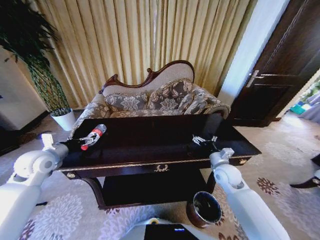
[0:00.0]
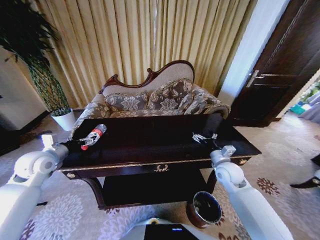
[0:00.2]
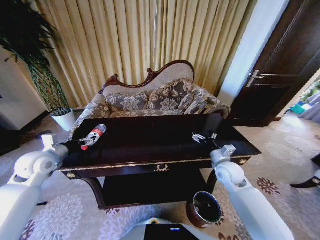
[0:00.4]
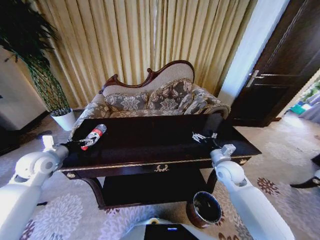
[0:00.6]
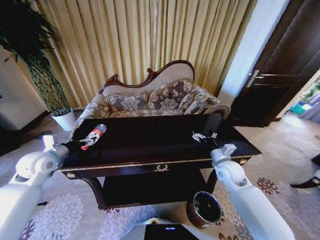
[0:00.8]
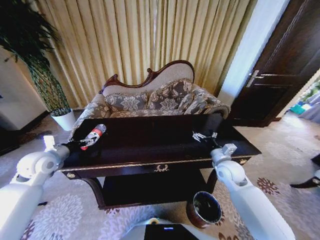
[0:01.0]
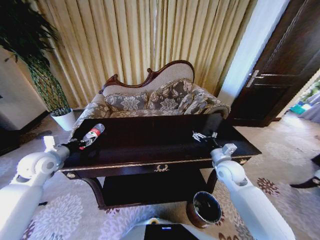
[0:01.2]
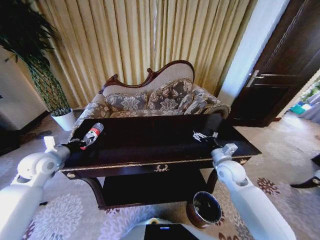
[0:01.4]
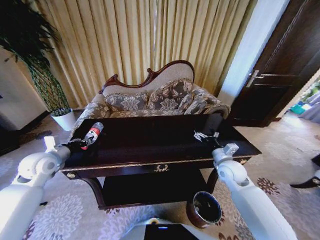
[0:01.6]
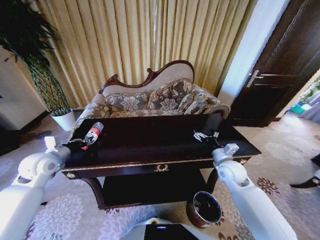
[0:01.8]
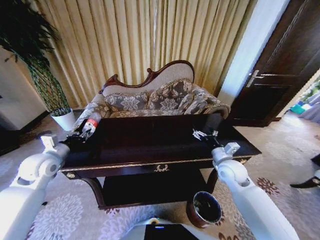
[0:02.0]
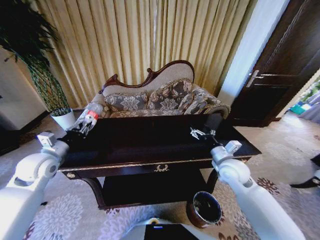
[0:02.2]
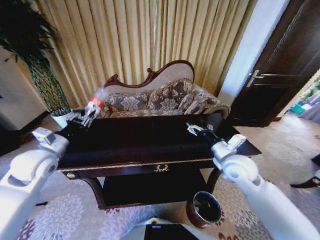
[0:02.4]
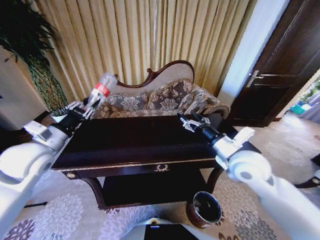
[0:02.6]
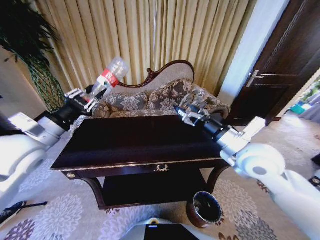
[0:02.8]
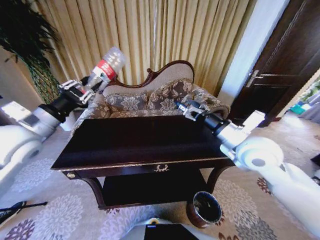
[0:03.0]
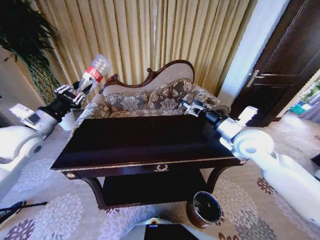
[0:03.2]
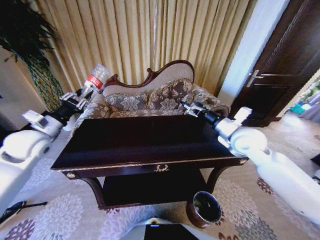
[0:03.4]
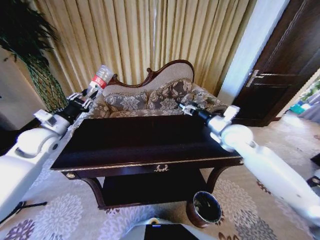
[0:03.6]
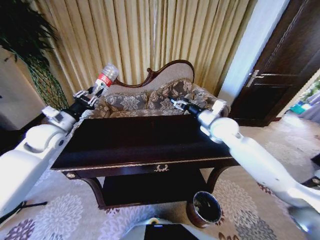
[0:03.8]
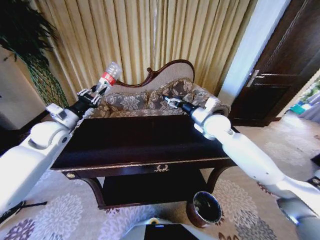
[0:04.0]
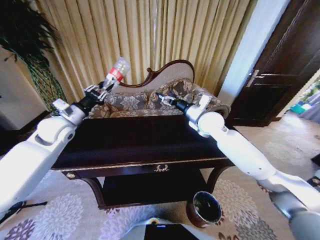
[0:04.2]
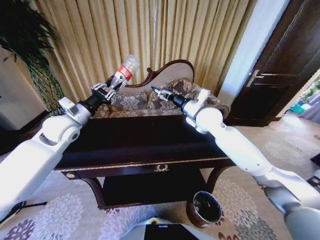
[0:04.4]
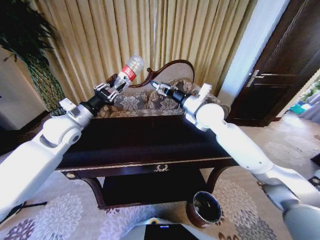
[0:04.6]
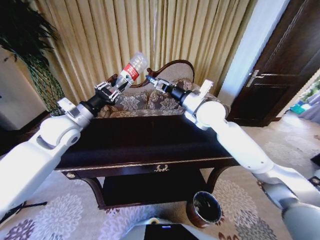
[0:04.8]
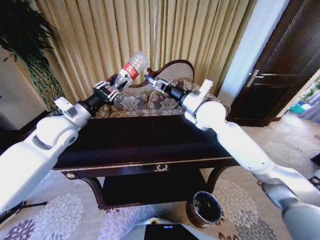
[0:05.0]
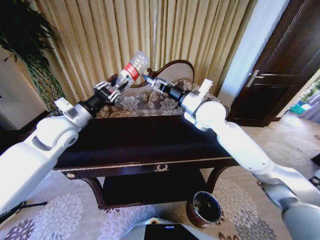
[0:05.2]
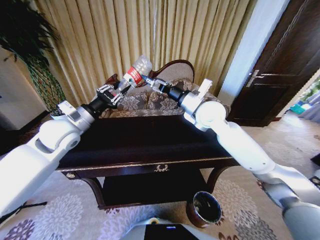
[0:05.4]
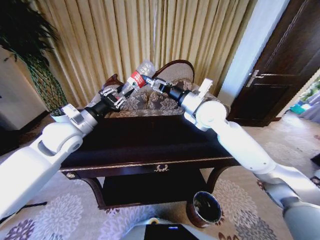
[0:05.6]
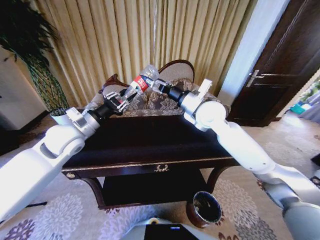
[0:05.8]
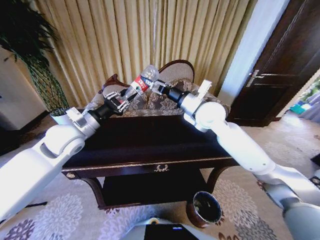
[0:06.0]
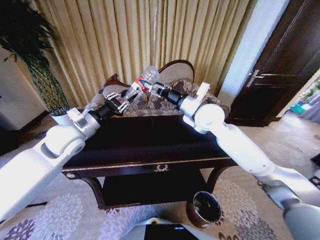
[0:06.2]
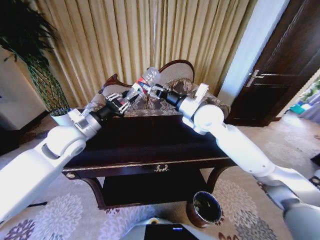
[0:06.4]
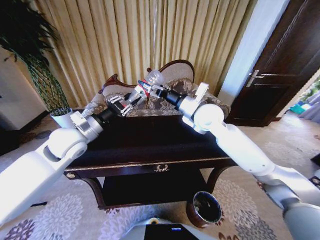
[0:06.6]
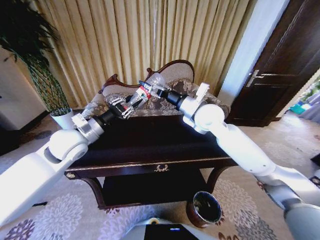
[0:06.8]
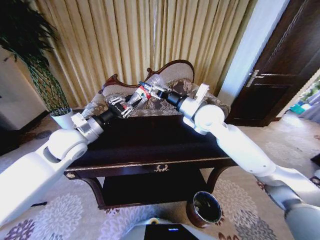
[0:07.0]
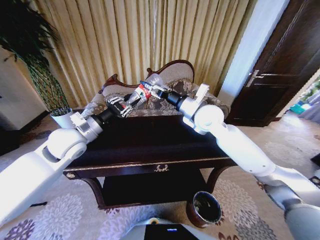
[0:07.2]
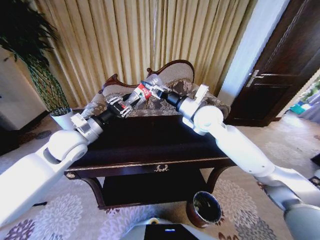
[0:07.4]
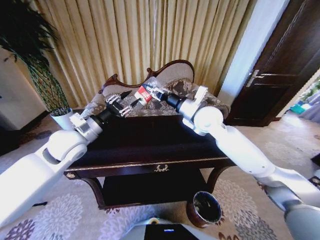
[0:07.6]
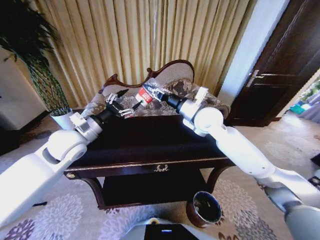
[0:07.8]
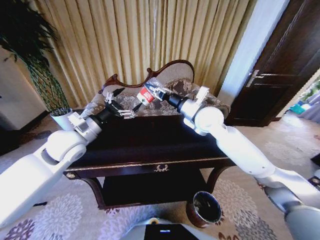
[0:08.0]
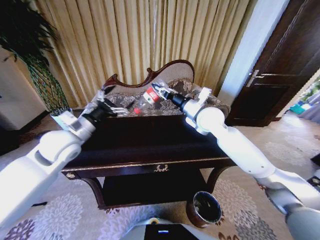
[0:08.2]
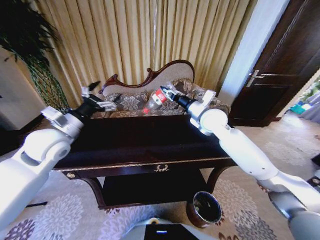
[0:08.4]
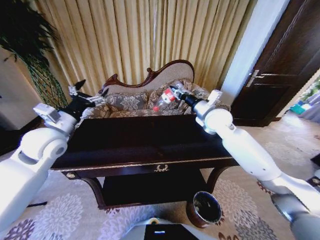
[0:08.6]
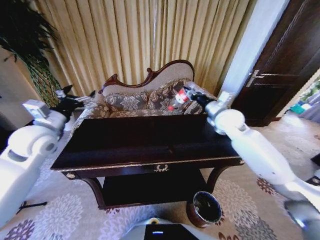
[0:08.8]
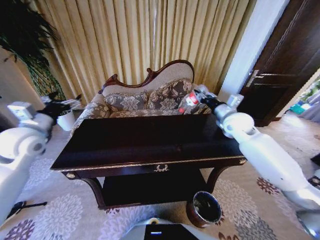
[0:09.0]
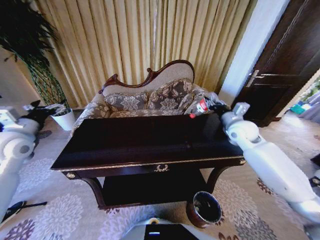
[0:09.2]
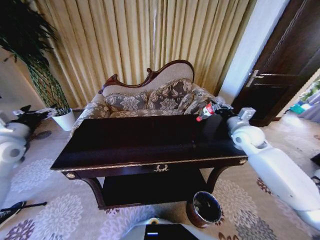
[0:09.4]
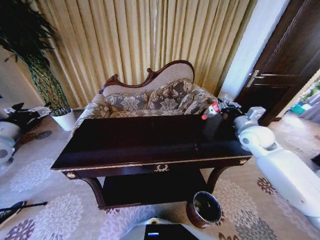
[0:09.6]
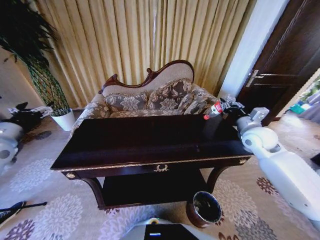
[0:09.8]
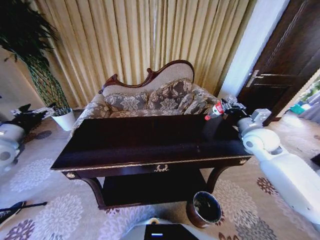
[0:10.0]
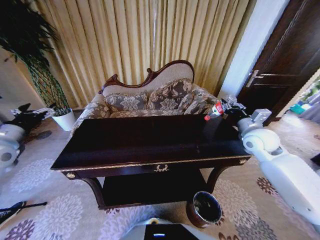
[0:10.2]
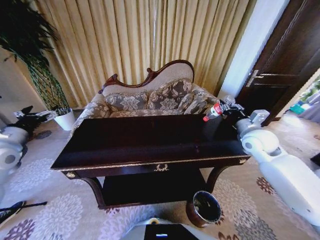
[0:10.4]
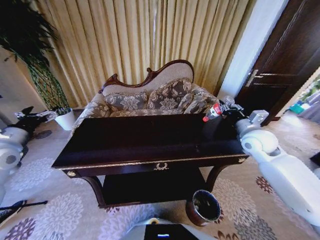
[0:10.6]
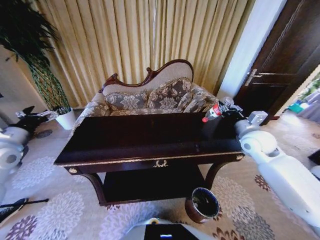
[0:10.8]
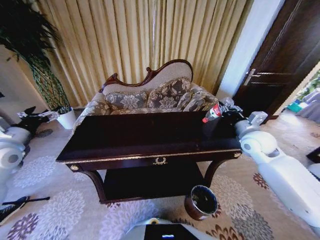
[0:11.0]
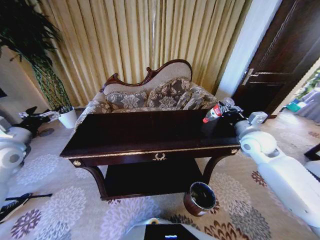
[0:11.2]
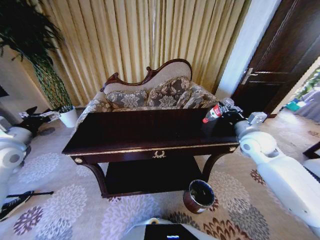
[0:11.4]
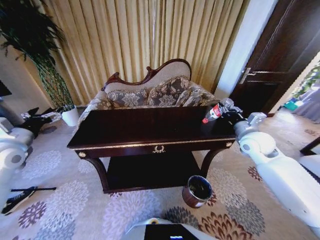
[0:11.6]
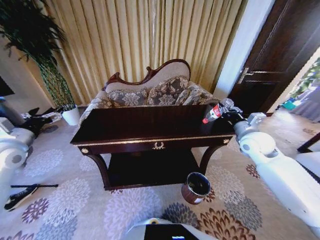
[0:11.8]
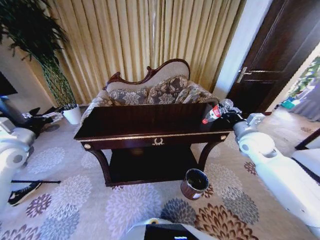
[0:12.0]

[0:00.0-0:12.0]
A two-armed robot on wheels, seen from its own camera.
Task of the whole recording: Move to the front of the table and place the trash on the table into the trash bin.
0:00.0 to 0:01.6: The left gripper closes its fingers.
0:01.6 to 0:03.0: The left gripper is displaced upward and to the right by roughly 15 cm; the right gripper heads upward, covering roughly 20 cm.
0:03.0 to 0:04.4: The right gripper goes about 15 cm forward, while the left gripper travels forward by approximately 10 cm.
0:04.4 to 0:06.0: The left gripper moves approximately 5 cm. Meanwhile the right gripper moves some 5 cm.
0:06.0 to 0:07.6: The right gripper closes.
0:07.6 to 0:09.0: The right gripper shifts roughly 15 cm to the right. The left gripper goes approximately 15 cm to the left, and opens up.
0:09.0 to 0:10.4: The left gripper goes approximately 5 cm to the left; the right gripper heads backward and to the right, covering approximately 10 cm.

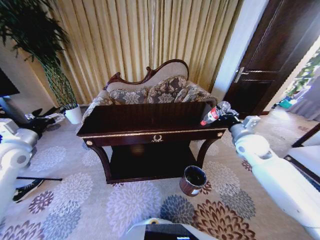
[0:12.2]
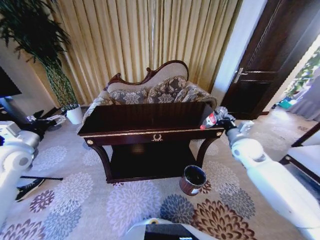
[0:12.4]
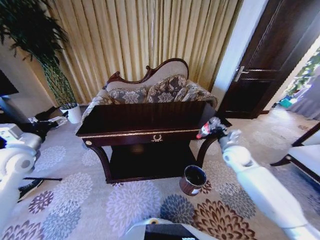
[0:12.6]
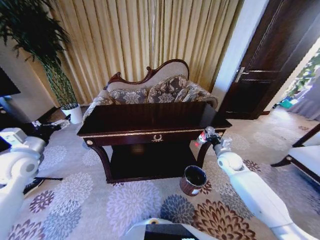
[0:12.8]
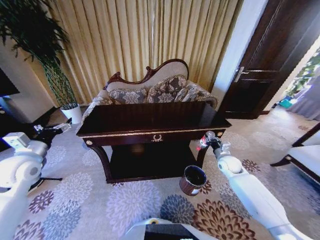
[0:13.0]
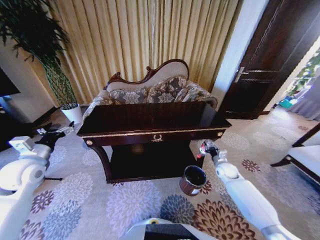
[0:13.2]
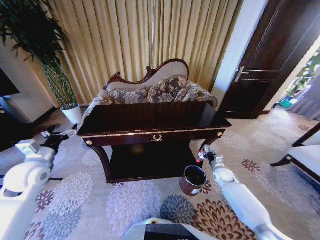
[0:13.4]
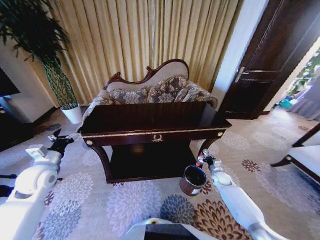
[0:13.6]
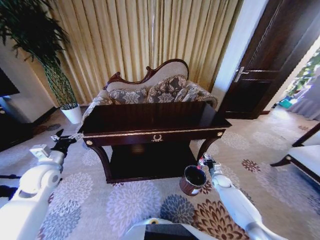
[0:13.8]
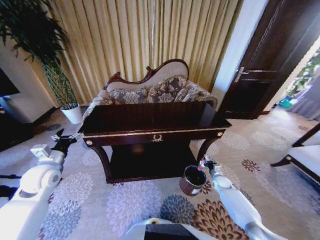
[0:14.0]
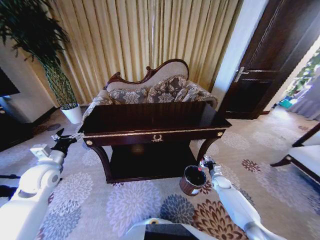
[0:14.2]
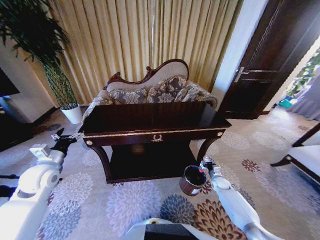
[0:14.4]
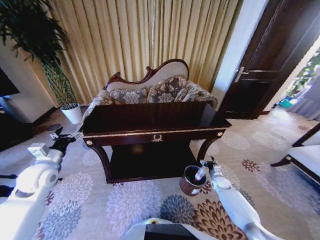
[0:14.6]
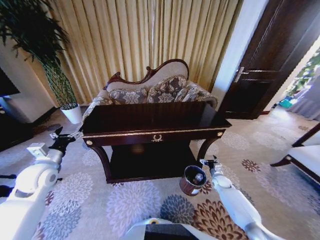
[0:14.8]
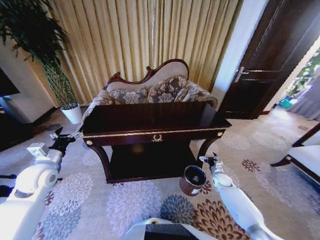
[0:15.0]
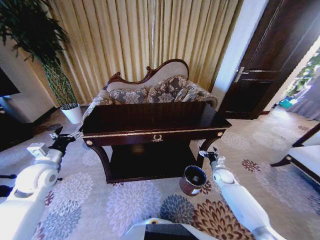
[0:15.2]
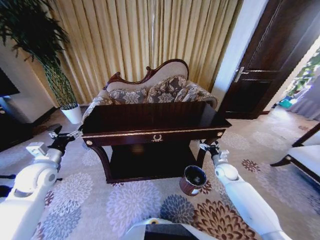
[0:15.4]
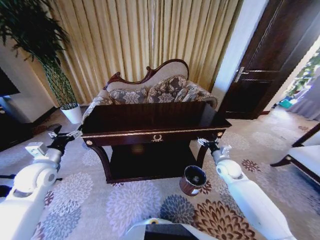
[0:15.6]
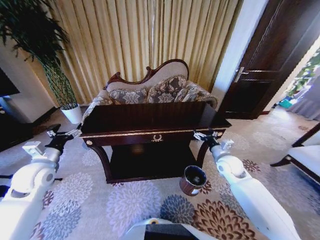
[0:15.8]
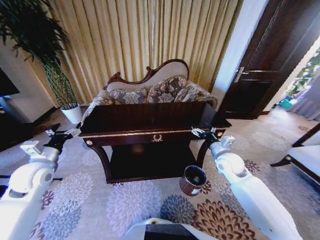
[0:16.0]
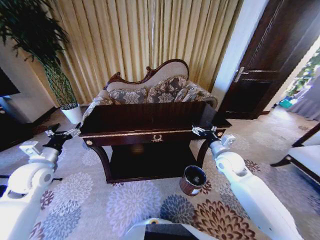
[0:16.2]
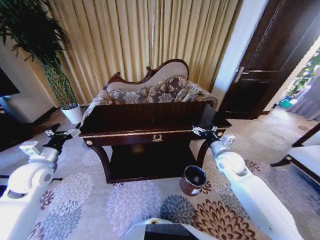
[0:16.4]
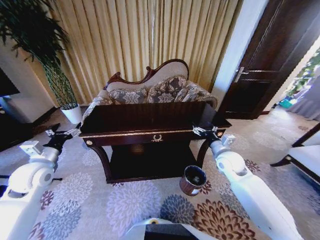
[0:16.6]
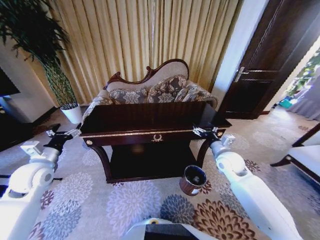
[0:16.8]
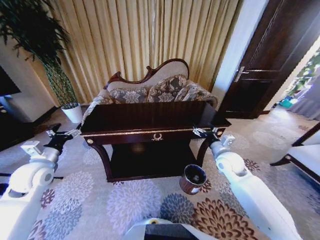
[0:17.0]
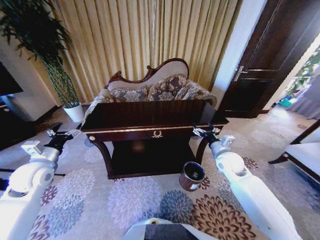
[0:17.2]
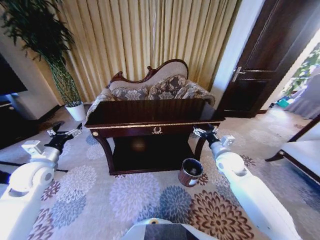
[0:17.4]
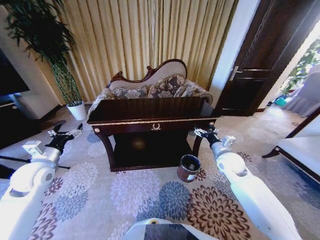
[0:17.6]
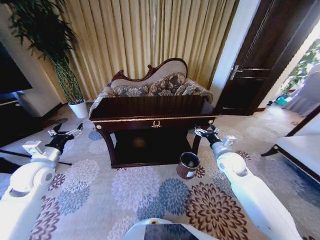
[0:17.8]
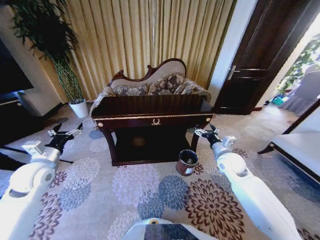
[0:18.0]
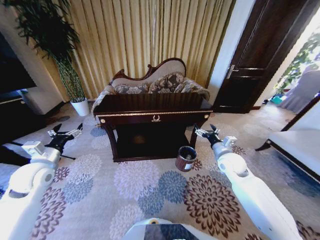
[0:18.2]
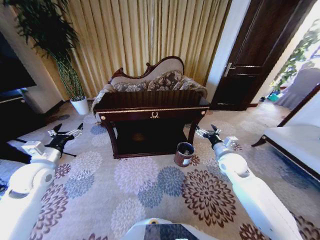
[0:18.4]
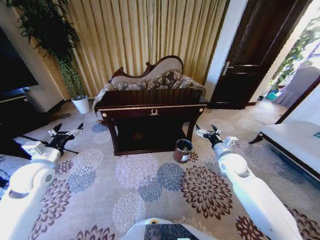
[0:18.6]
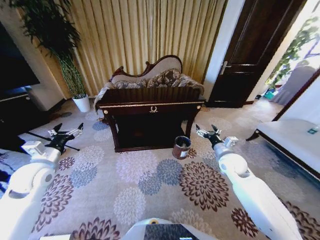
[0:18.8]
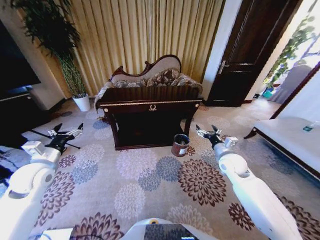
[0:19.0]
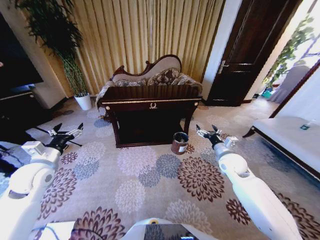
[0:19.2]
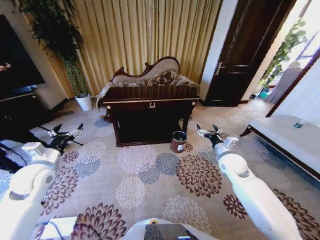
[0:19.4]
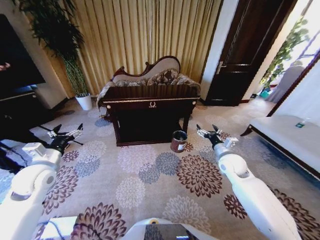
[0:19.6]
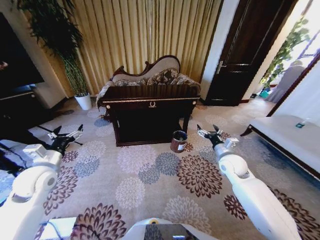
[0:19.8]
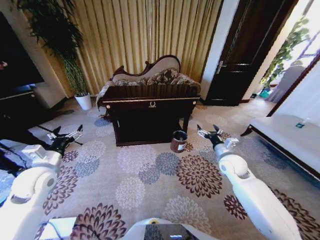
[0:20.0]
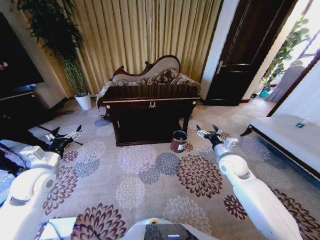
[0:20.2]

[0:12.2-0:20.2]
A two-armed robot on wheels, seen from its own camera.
Task of the whole recording: Move to the front of the table and place the trash on the table into the trash bin.
0:12.2 to 0:13.8: The right gripper moves downward, approximately 35 cm. Meanwhile the left gripper goes some 10 cm downward.
0:13.8 to 0:15.4: The right gripper goes roughly 10 cm upward, and opens up.
0:15.4 to 0:17.0: The right gripper is displaced upward and to the left by approximately 15 cm.

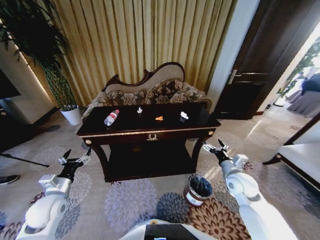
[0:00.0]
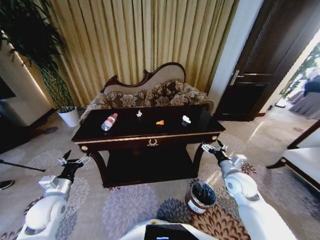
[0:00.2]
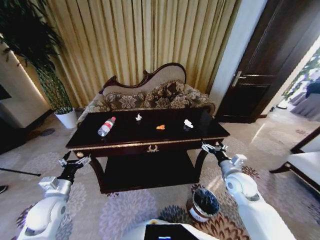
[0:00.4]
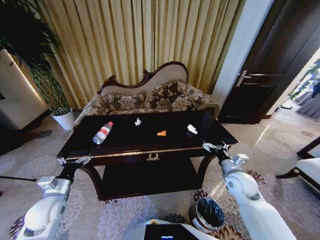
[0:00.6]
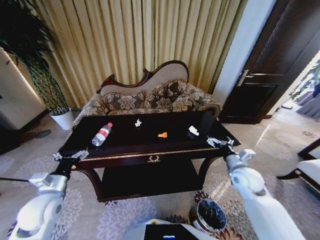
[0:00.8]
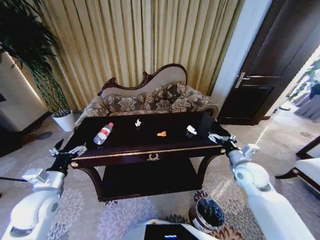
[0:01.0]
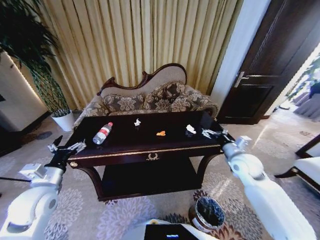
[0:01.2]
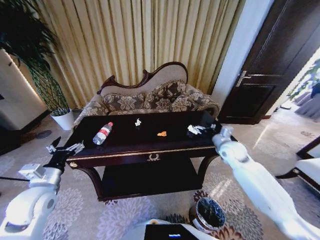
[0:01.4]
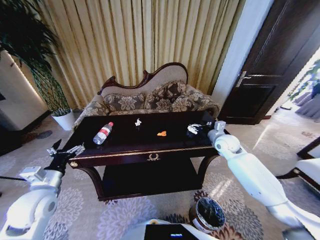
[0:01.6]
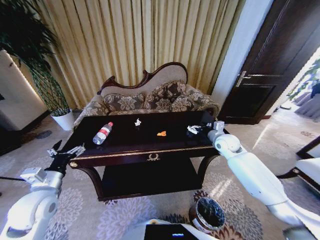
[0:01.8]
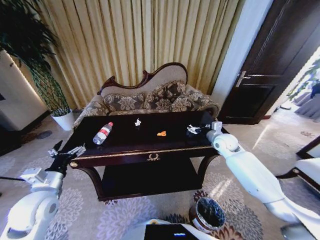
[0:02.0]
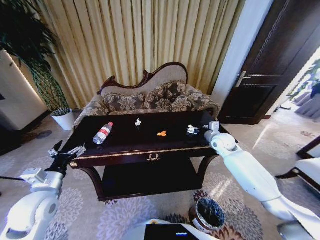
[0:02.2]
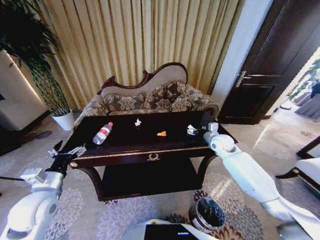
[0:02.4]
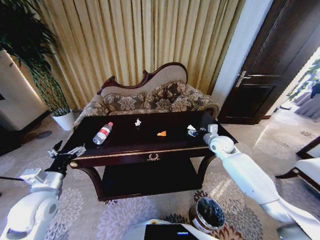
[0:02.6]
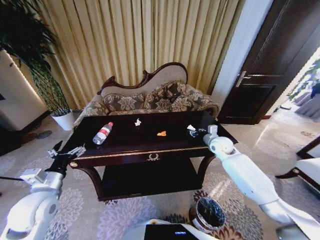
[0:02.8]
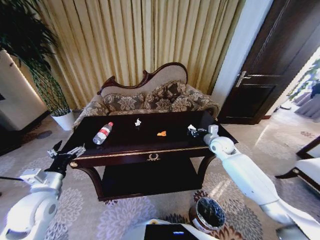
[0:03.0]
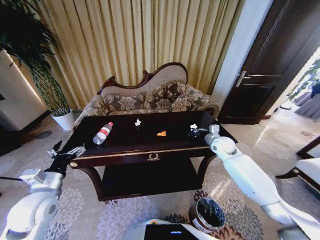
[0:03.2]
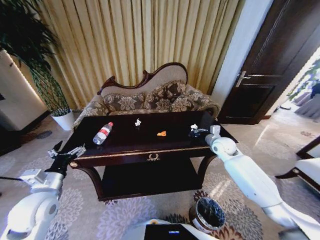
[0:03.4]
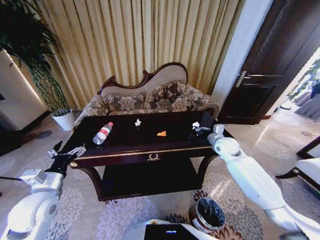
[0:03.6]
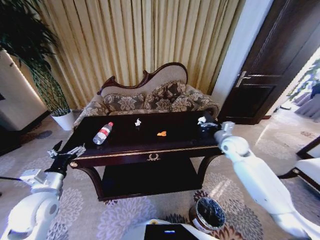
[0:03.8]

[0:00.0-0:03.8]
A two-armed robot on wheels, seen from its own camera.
Task of the whole recording: Move to the front of the table and place the trash on the table into the trash bin.
0:00.0 to 0:01.2: The right gripper is displaced upward and forward by roughly 10 cm, while the left gripper goes approximately 10 cm upward.
0:01.2 to 0:02.6: The right gripper moves forward, some 10 cm.
0:02.6 to 0:03.8: The right gripper closes its fingers.
